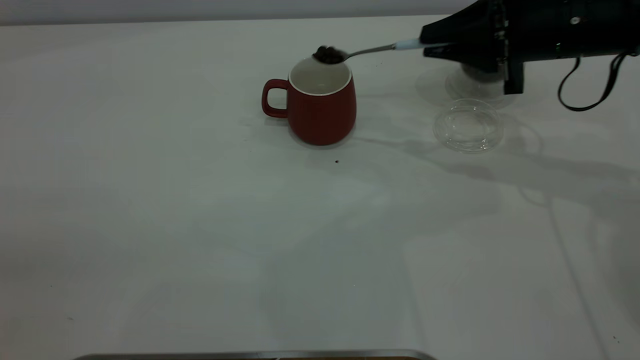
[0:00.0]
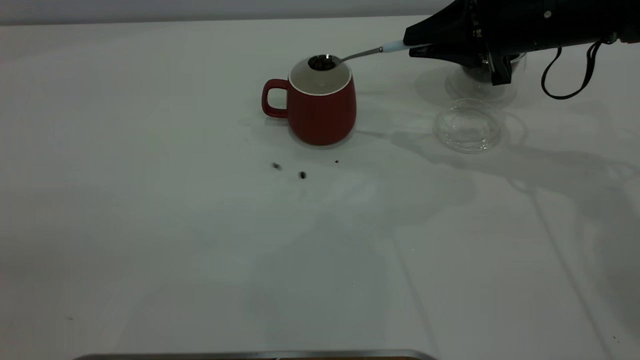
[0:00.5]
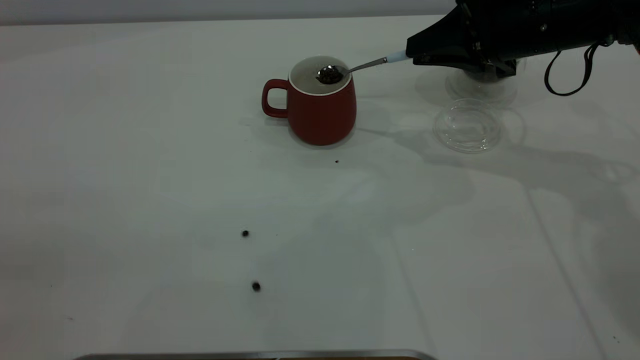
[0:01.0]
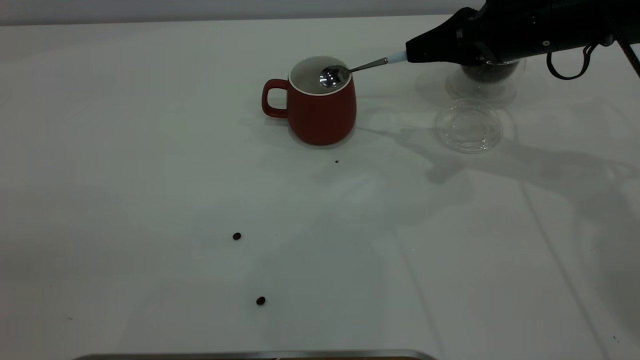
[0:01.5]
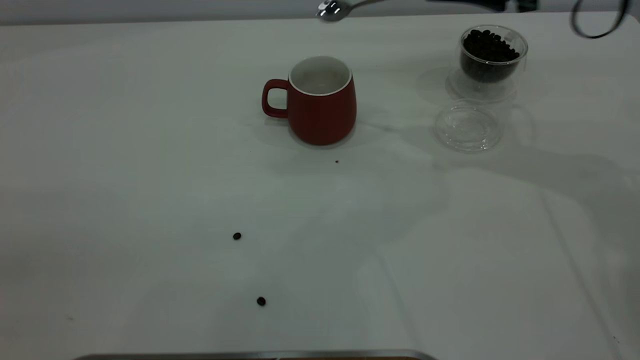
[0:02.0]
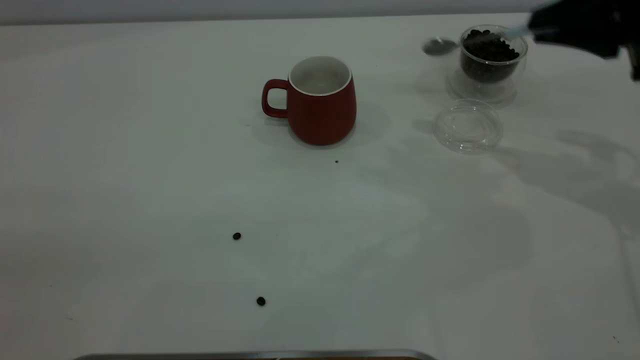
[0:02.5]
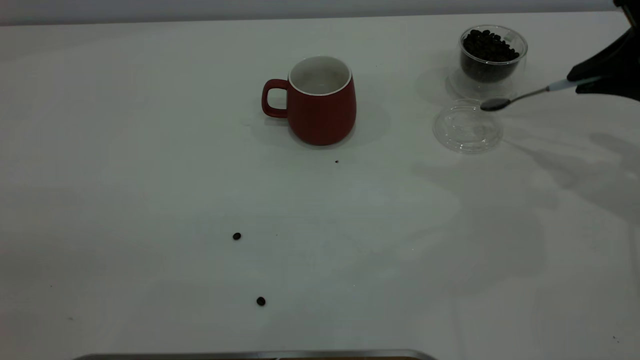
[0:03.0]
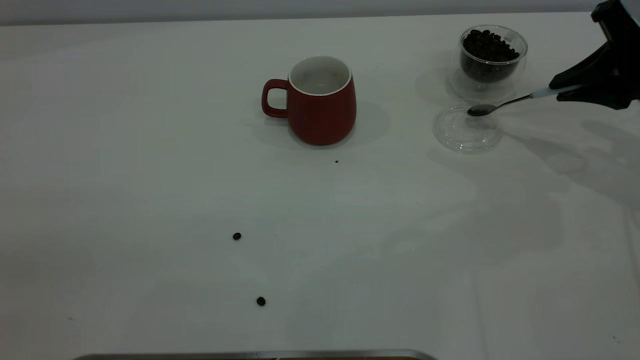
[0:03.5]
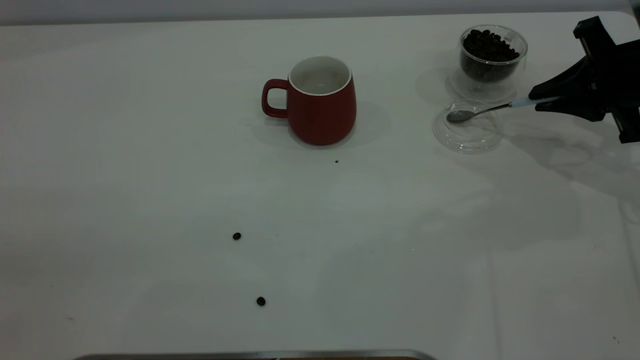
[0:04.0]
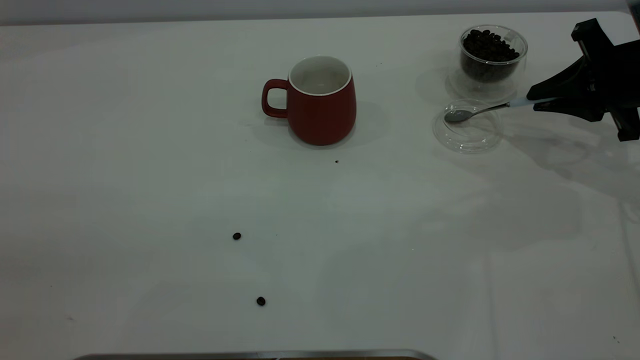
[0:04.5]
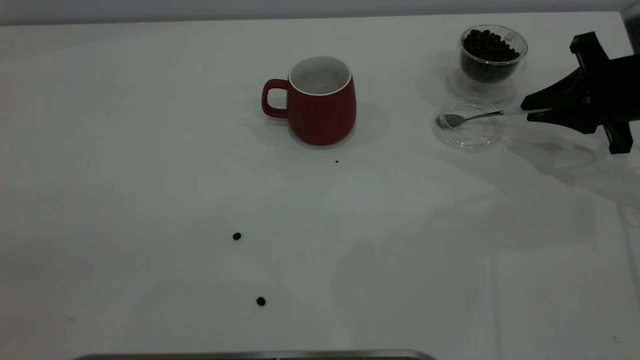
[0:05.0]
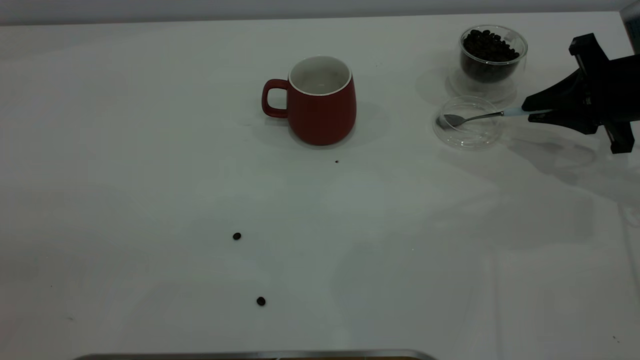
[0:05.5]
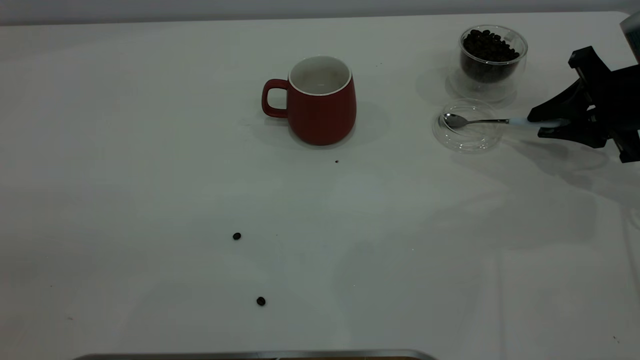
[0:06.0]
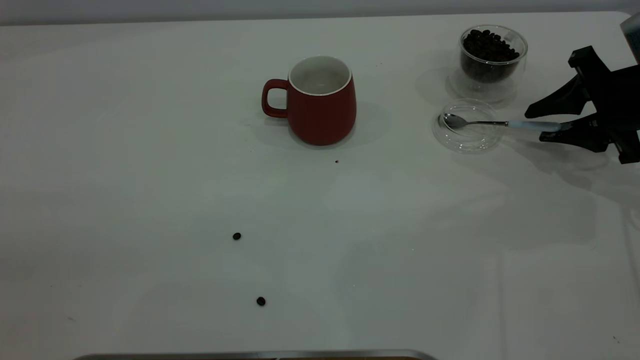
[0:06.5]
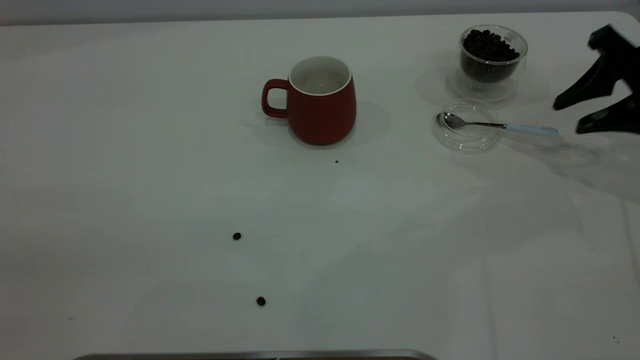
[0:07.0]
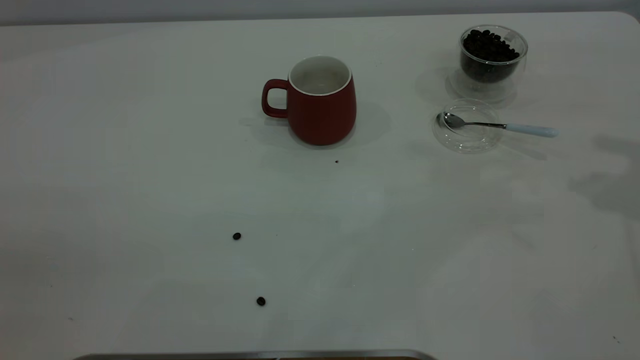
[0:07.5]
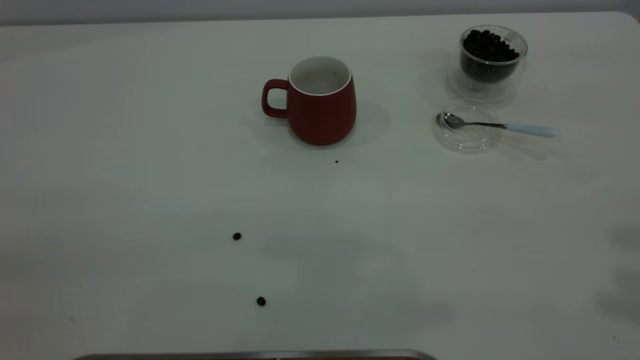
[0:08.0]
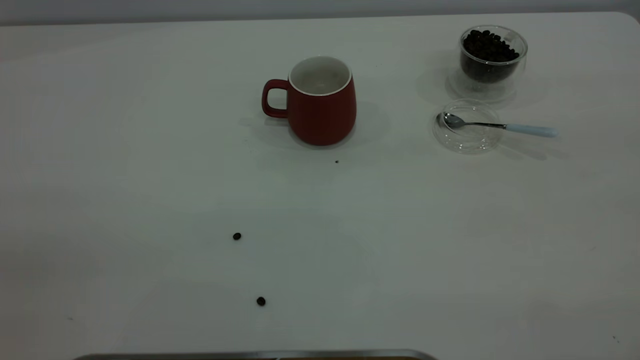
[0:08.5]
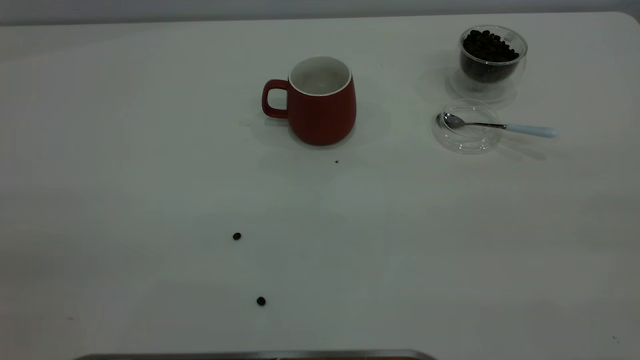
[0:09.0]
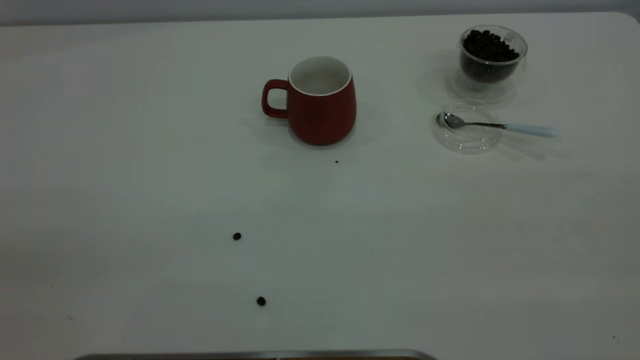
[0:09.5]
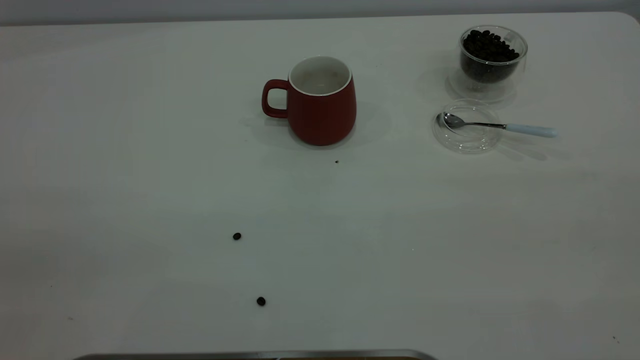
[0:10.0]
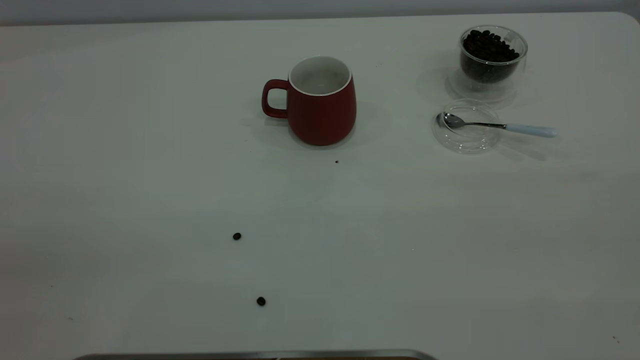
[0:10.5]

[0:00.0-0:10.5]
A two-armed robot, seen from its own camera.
Task of the whole recording: the left gripper place the red cup in the center of the table, the right gripper take the blue spoon from the cup lid and scoop out the coffee beans from the coffee cup and put them into the red cup, the right gripper put the spoon back into the cup lid.
Step, 0:02.0 to 0:06.5: Place the spoon back in its original place.
0:00.0 to 0:02.0: The right gripper moves upward, some 5 cm.
0:02.0 to 0:04.0: The right gripper shifts roughly 15 cm downward and to the right.
0:04.0 to 0:06.5: The right gripper opens its fingers.
0:06.5 to 0:08.5: The right gripper shifts roughly 50 cm upward and backward.
